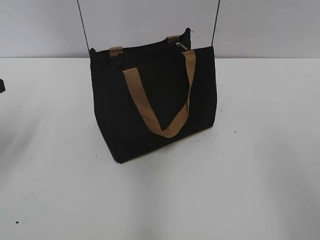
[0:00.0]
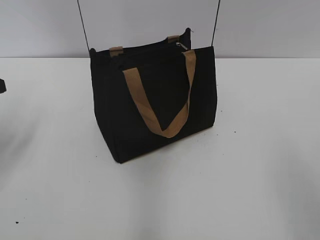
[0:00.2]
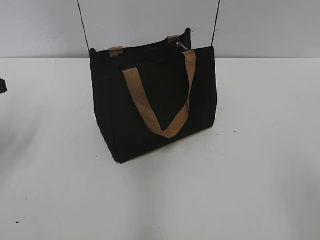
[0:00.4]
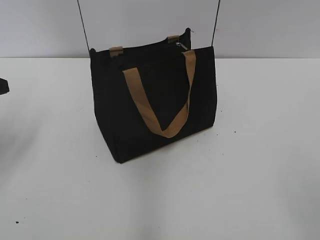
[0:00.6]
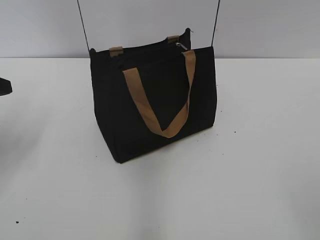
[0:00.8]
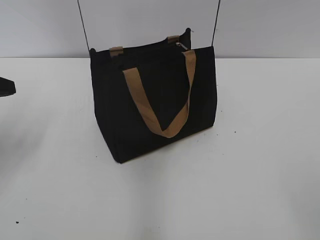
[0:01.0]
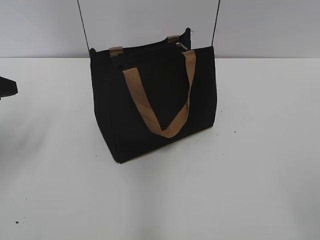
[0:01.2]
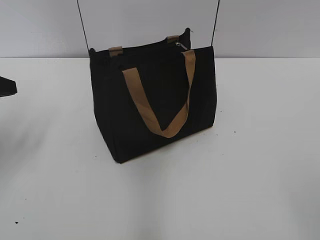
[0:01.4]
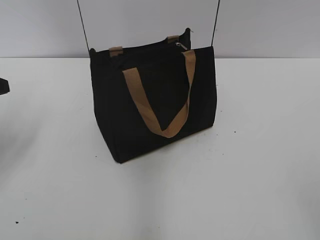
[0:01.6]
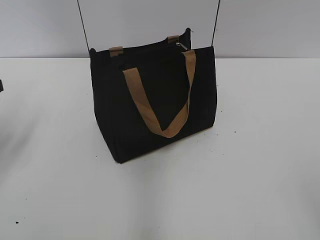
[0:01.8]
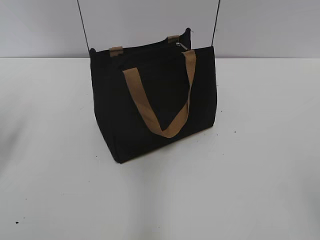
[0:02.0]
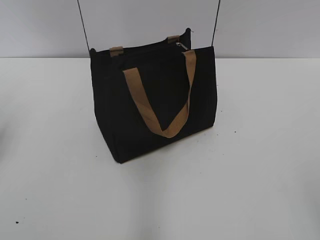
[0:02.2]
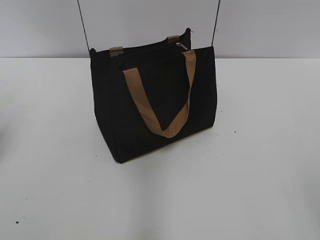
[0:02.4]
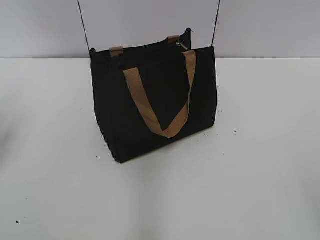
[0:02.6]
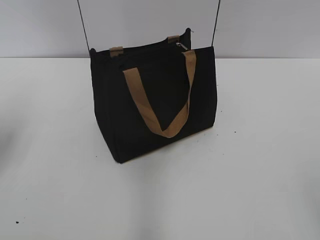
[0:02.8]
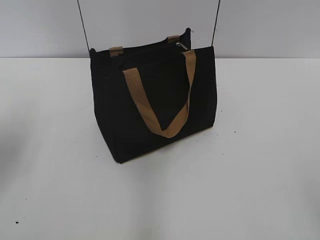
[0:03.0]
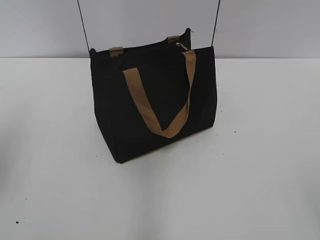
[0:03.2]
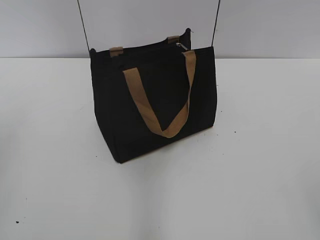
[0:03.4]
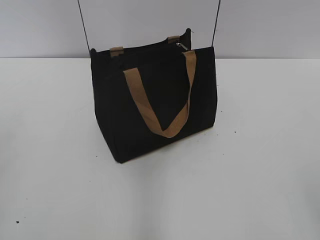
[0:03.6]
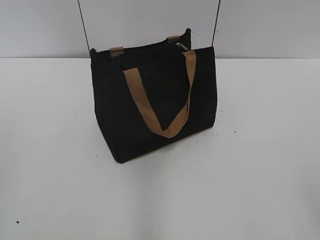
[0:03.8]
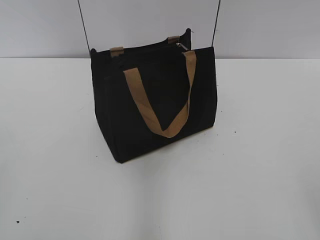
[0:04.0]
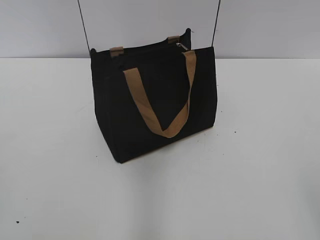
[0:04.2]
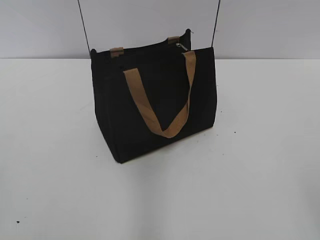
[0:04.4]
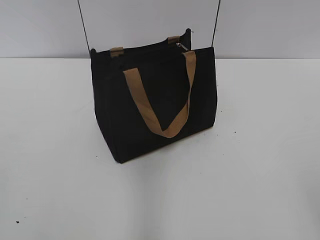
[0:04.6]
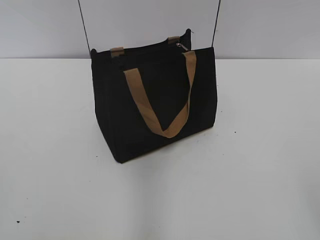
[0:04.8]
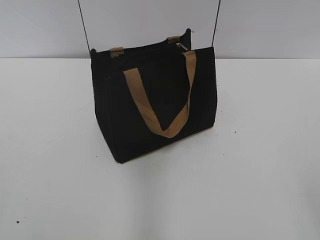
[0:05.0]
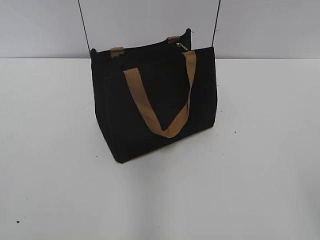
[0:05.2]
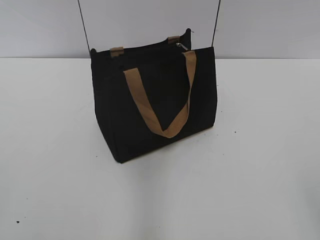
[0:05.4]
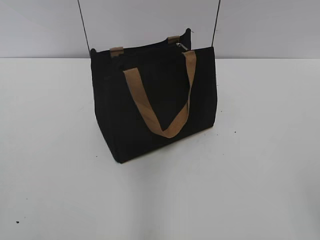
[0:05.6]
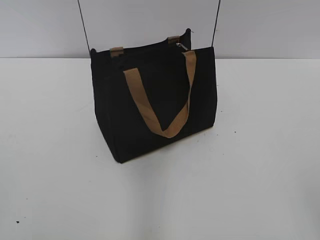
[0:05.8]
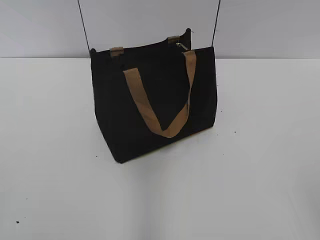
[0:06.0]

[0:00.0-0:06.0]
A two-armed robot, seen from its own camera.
0:03.0 to 0:04.4: The left gripper shifts some 25 cm backward.

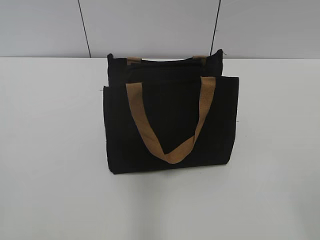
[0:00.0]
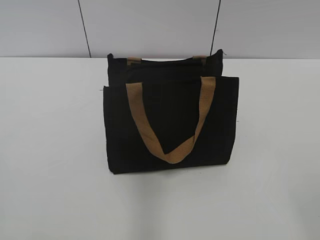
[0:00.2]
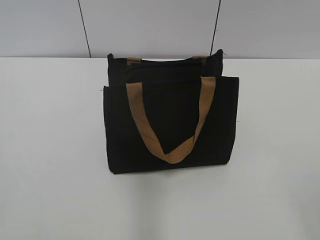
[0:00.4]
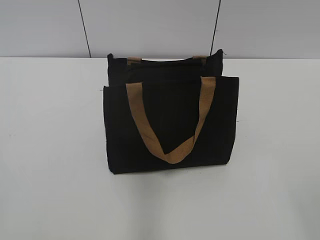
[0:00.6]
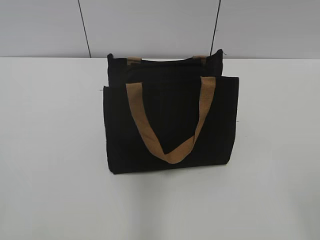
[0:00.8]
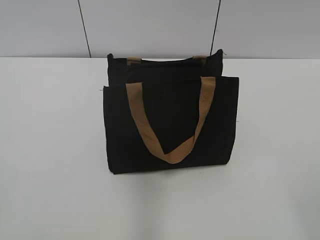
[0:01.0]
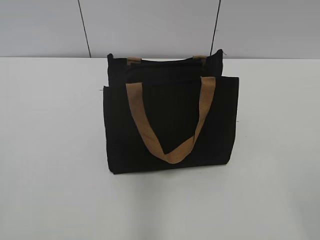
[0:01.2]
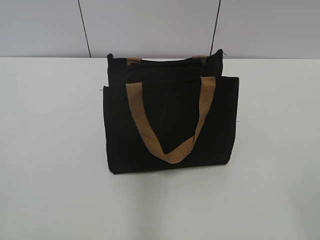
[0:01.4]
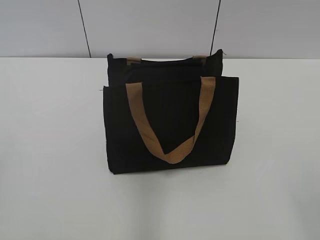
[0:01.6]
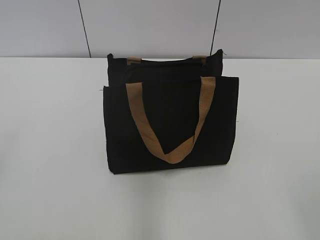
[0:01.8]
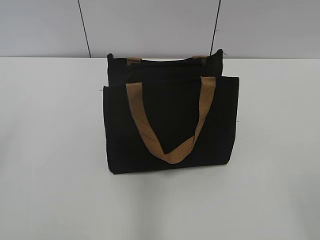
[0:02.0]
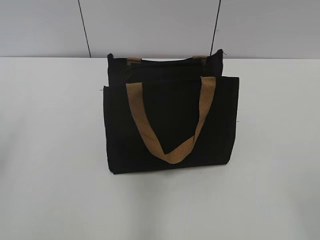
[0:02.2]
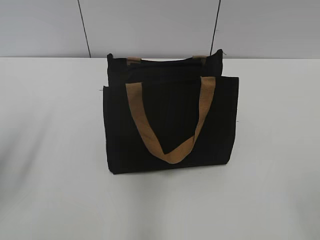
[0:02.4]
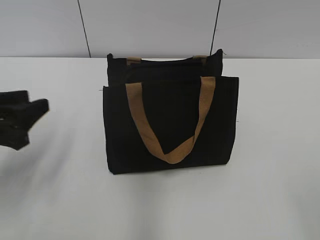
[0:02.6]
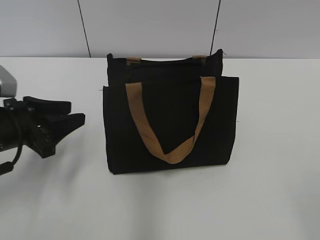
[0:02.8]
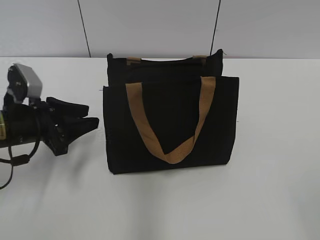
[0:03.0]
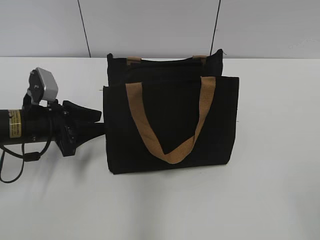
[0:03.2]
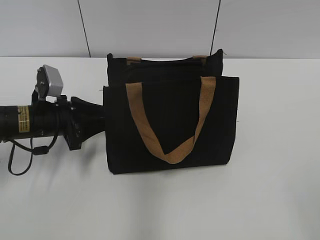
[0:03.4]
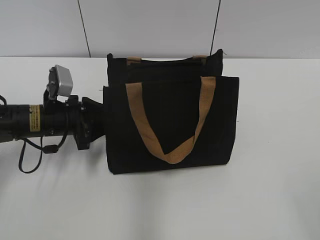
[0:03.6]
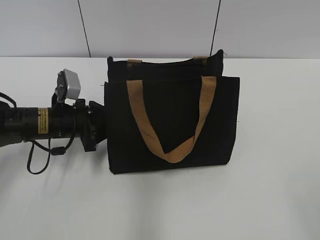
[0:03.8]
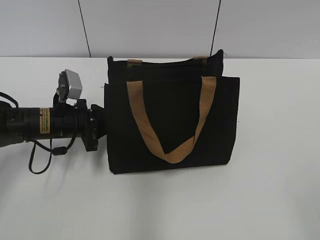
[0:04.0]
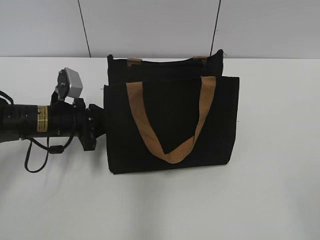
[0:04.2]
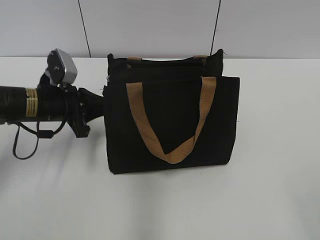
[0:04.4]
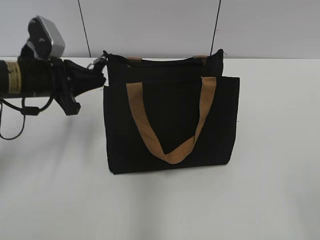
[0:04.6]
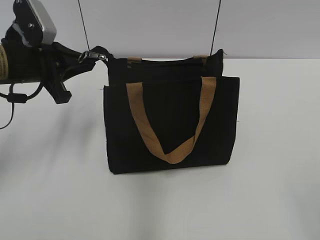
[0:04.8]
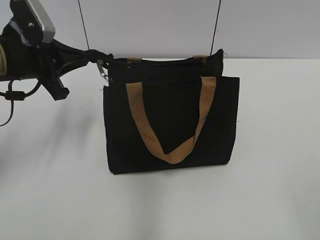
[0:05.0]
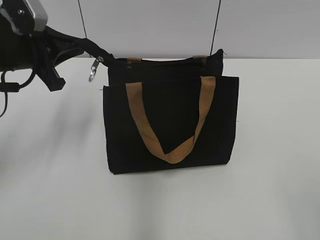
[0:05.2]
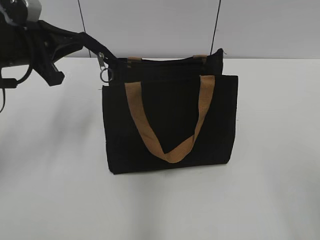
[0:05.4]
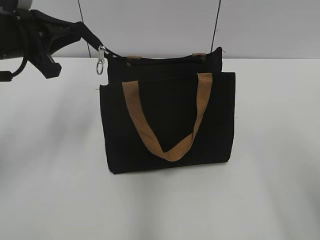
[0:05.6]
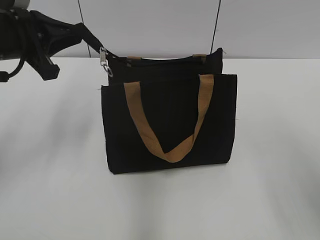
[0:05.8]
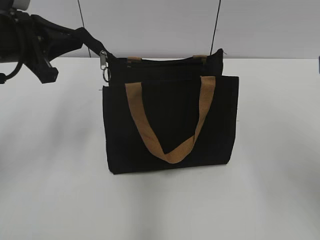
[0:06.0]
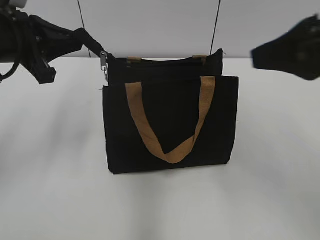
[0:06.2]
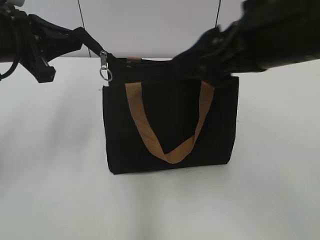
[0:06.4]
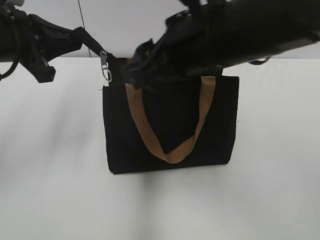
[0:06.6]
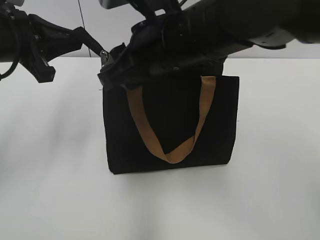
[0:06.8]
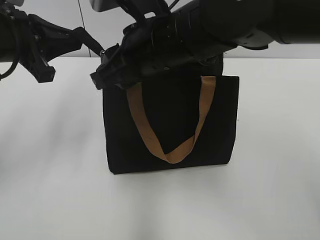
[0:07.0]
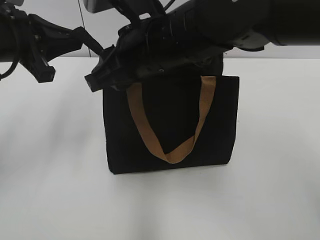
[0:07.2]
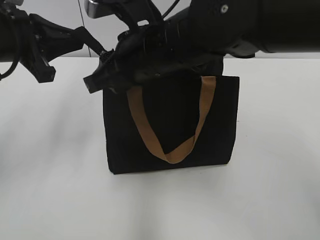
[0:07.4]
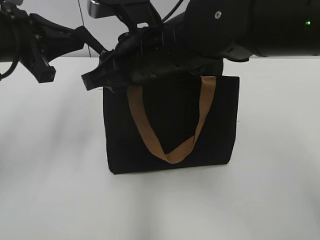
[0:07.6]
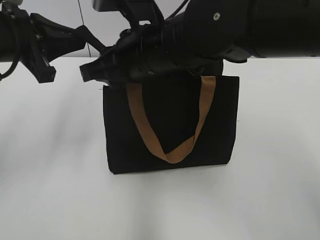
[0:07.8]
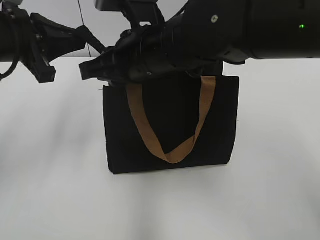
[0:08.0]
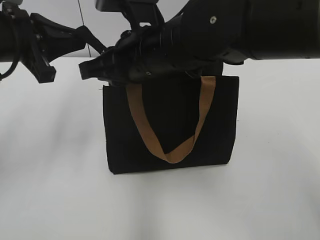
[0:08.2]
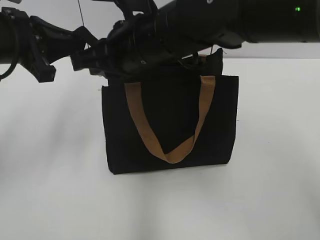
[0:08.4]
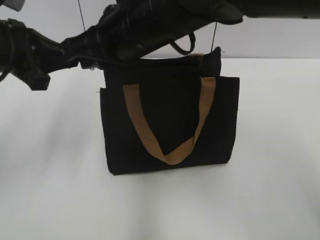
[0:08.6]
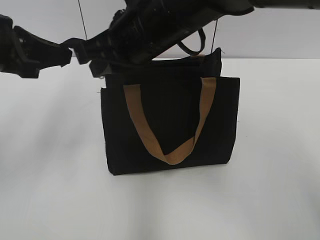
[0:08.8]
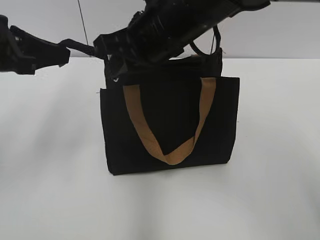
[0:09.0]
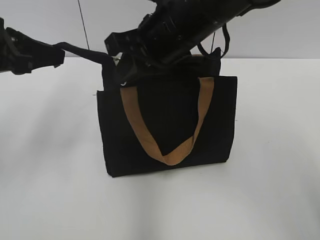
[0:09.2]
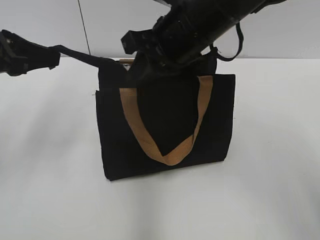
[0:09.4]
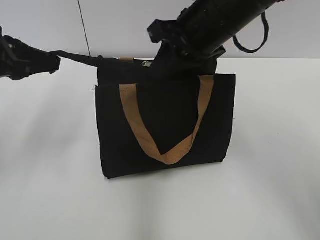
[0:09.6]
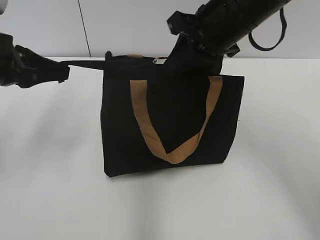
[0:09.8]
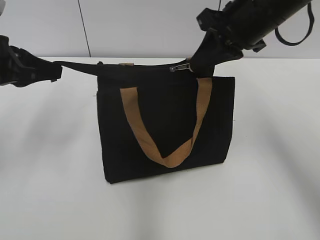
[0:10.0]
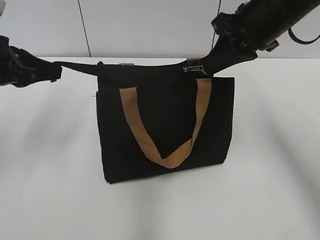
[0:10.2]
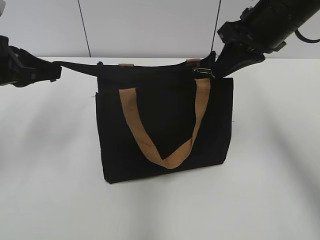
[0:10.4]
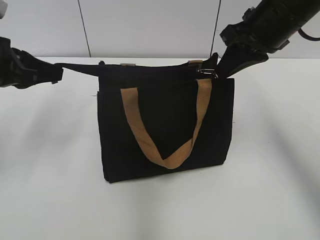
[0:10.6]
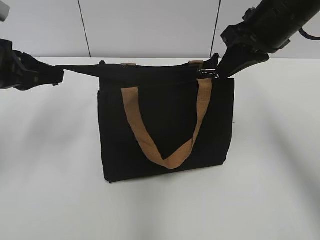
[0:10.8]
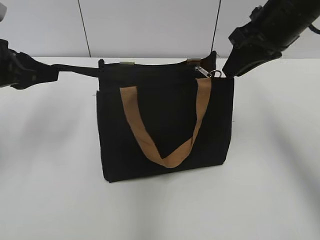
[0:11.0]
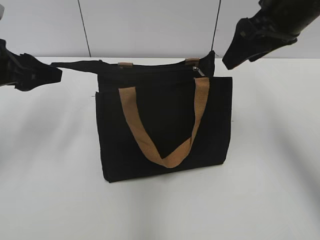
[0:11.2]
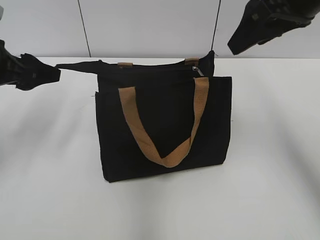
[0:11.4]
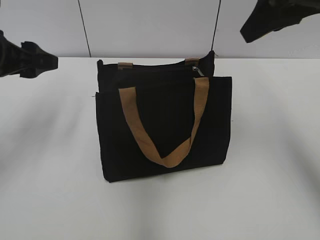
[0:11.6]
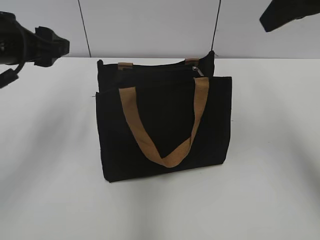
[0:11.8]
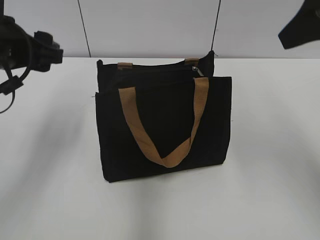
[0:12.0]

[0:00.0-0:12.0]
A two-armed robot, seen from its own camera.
Step, 0:00.0 to 0:10.8: Zip up the bag with your right hand.
Step, 0:11.2 to 0:11.4: Grab the zipper with your left hand.
0:01.6 to 0:03.0: The left gripper travels forward and downward by approximately 35 cm.
0:03.0 to 0:04.4: The left gripper is displaced forward by approximately 5 cm, and closes up.
0:04.4 to 0:06.0: The left gripper moves upward, about 15 cm; the right gripper travels forward and upward by about 20 cm.
0:06.0 to 0:07.6: The right gripper is displaced to the left and forward by roughly 30 cm, and closes up.
0:09.0 to 0:10.4: The right gripper goes some 15 cm to the right.
0:10.4 to 0:12.0: The right gripper shifts some 15 cm backward and upward, and opens. The left gripper is displaced to the right by about 5 cm, and opens up.

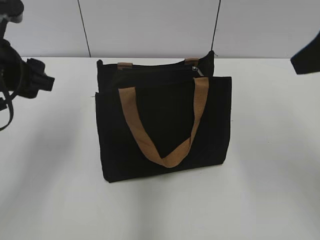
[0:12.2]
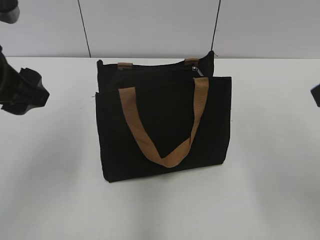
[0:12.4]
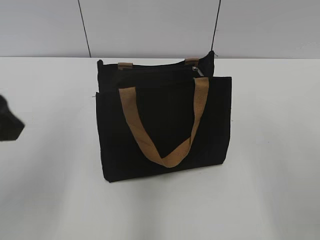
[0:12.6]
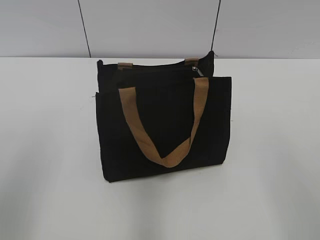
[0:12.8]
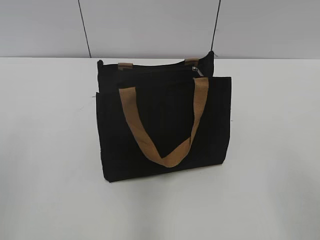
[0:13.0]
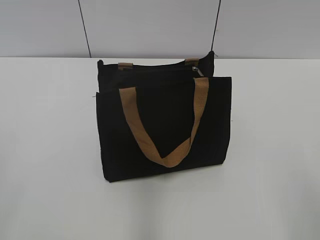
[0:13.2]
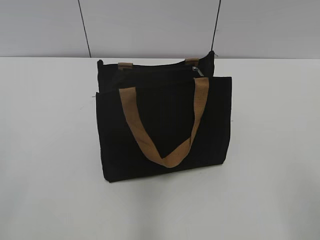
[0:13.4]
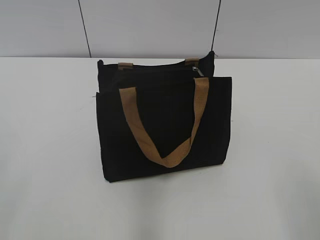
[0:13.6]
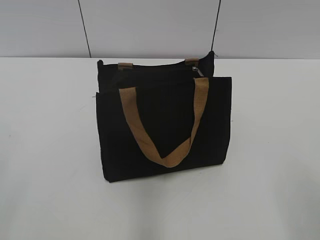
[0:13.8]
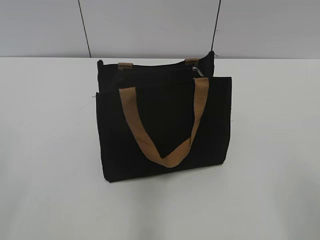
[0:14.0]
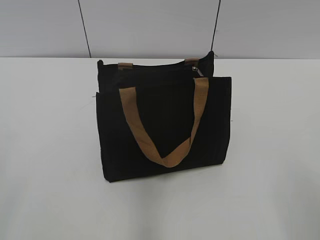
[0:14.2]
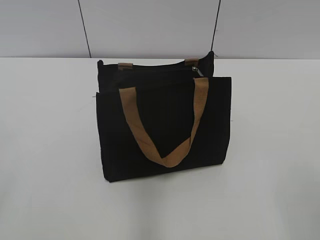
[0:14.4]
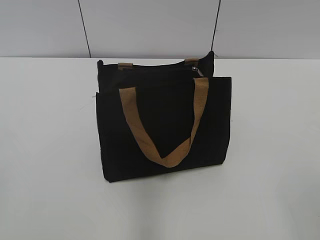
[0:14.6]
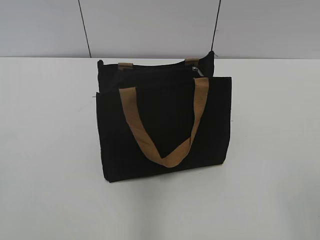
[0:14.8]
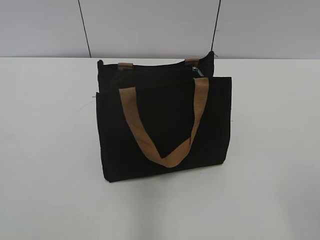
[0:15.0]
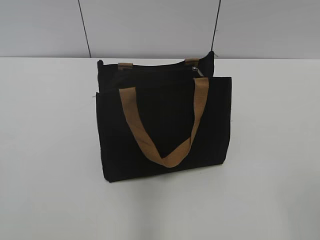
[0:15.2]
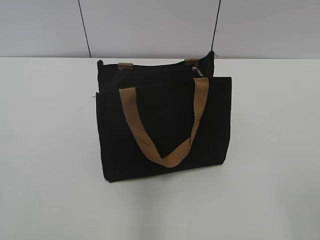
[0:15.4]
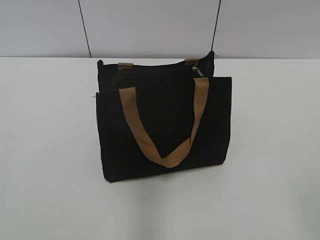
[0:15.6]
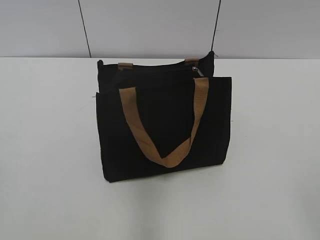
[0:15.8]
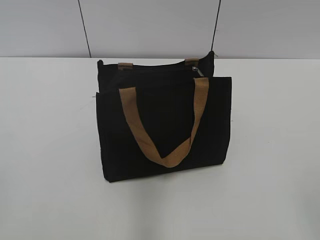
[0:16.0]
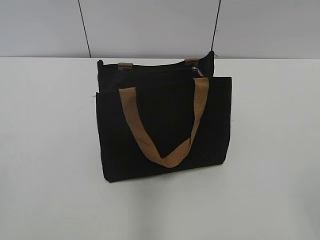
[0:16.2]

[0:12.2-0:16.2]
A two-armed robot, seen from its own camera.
0:12.2 to 0:13.6: The right gripper goes roughly 20 cm backward and downward, while the left gripper is displaced backward and to the left by some 25 cm.
